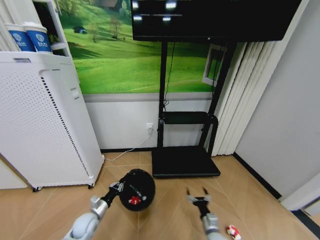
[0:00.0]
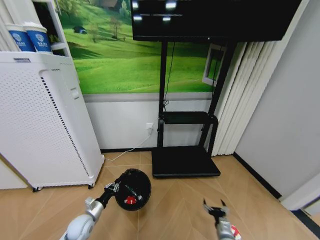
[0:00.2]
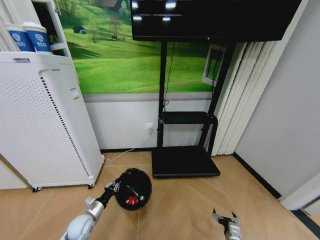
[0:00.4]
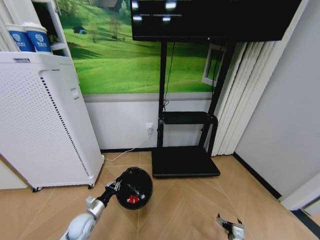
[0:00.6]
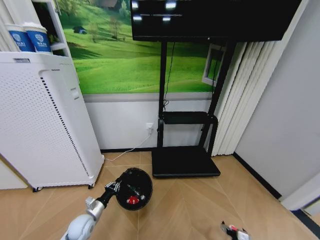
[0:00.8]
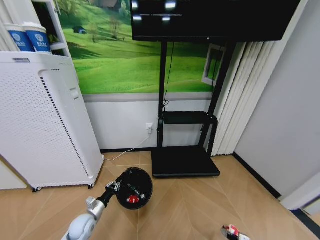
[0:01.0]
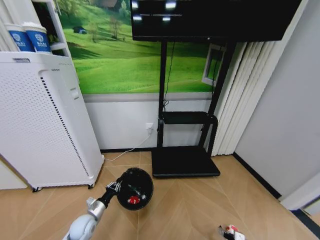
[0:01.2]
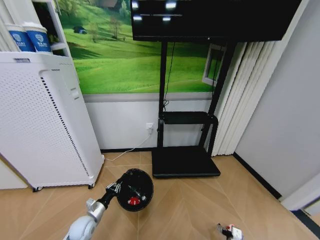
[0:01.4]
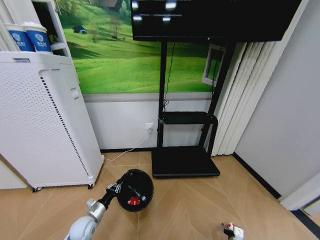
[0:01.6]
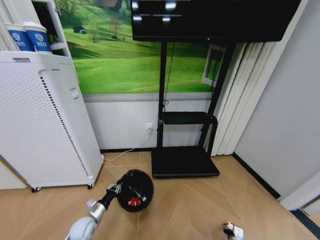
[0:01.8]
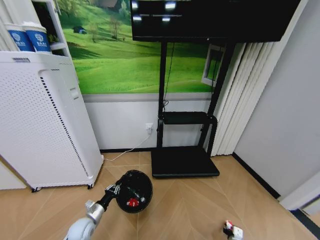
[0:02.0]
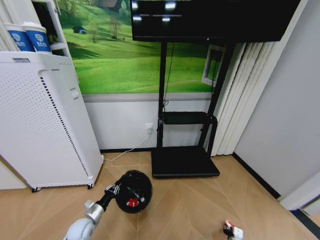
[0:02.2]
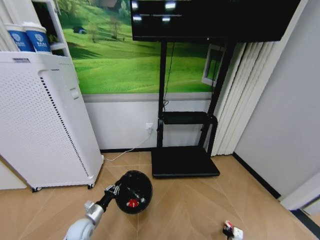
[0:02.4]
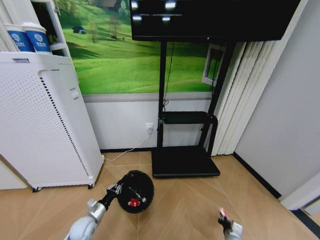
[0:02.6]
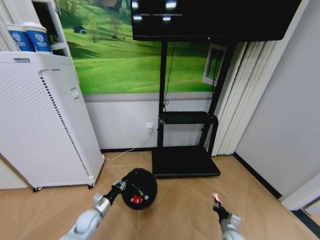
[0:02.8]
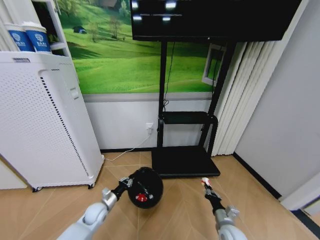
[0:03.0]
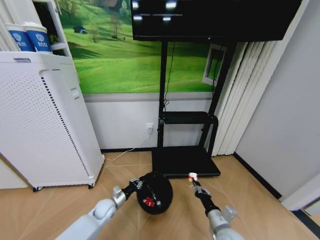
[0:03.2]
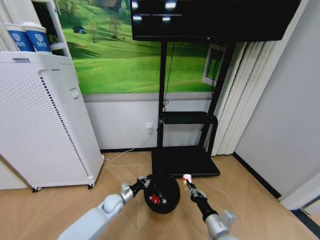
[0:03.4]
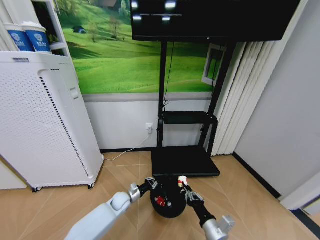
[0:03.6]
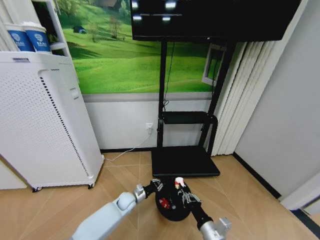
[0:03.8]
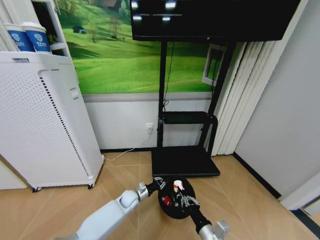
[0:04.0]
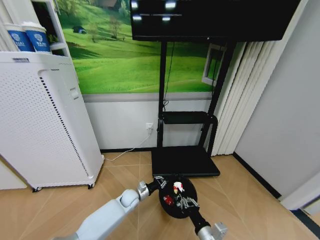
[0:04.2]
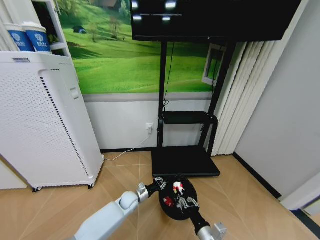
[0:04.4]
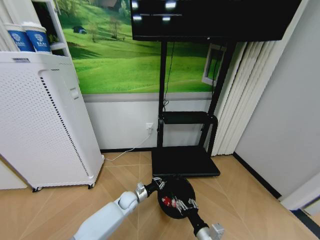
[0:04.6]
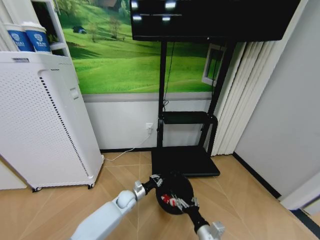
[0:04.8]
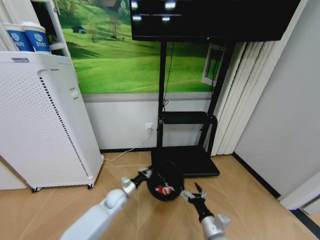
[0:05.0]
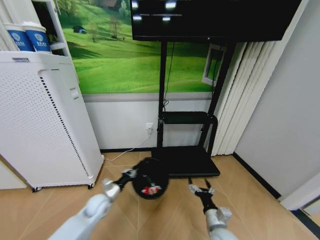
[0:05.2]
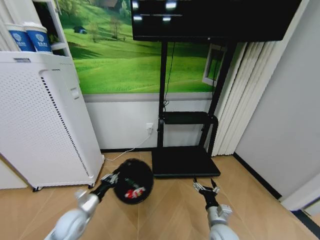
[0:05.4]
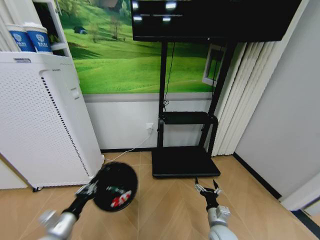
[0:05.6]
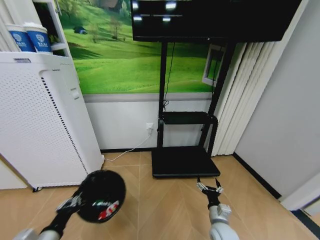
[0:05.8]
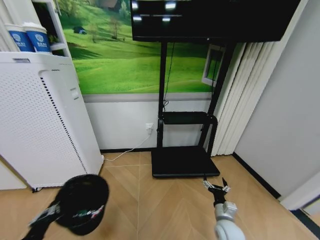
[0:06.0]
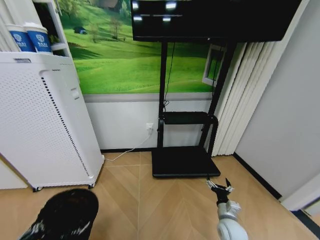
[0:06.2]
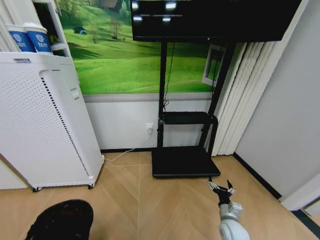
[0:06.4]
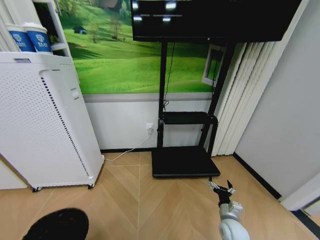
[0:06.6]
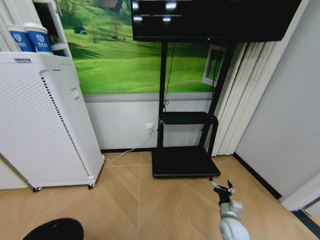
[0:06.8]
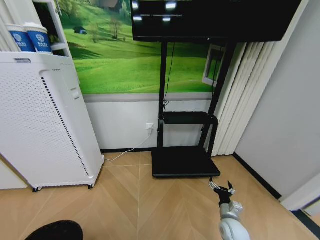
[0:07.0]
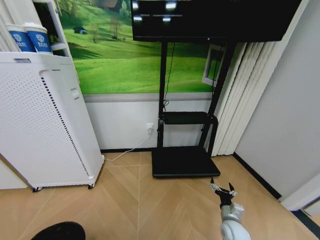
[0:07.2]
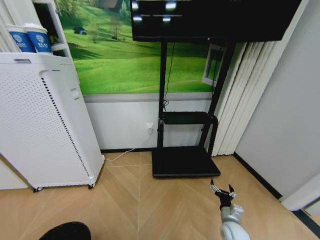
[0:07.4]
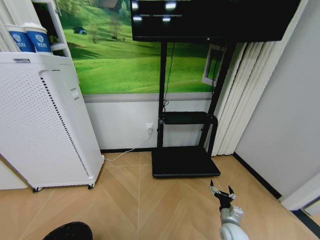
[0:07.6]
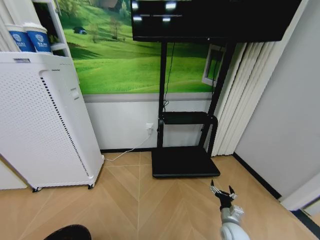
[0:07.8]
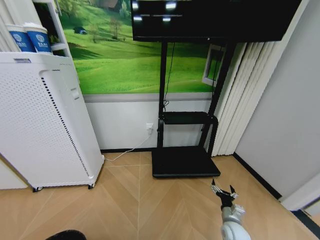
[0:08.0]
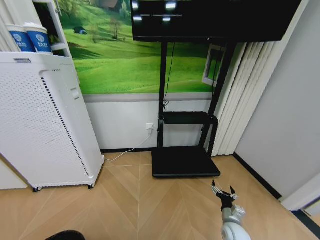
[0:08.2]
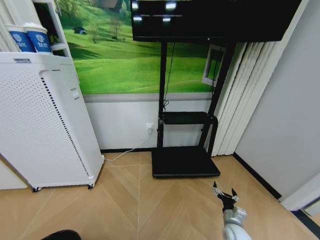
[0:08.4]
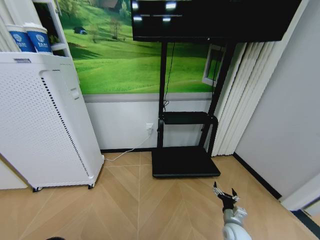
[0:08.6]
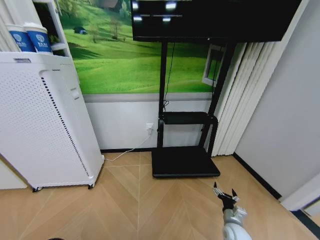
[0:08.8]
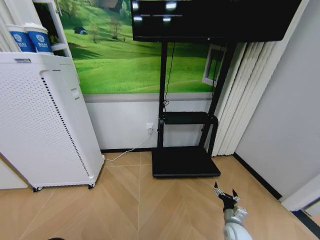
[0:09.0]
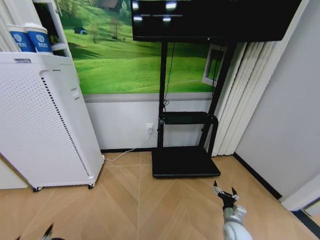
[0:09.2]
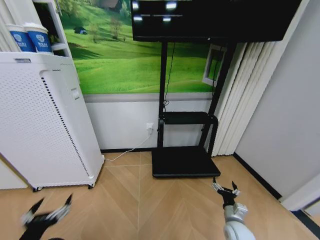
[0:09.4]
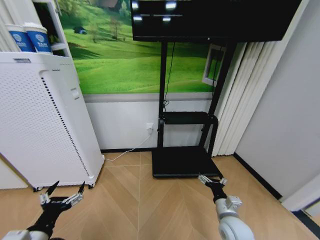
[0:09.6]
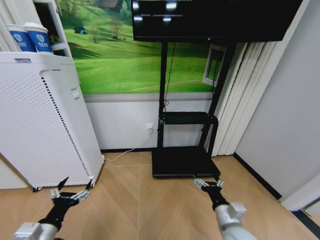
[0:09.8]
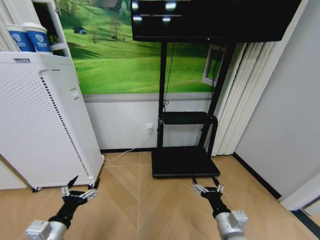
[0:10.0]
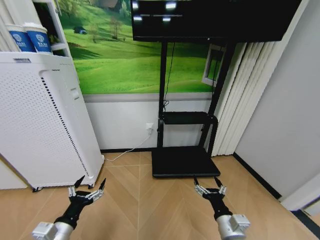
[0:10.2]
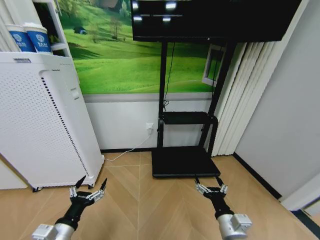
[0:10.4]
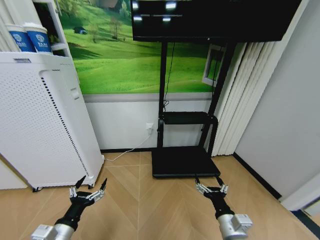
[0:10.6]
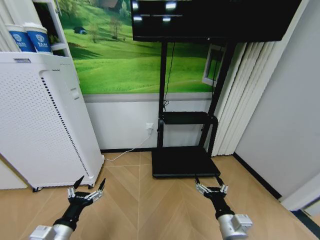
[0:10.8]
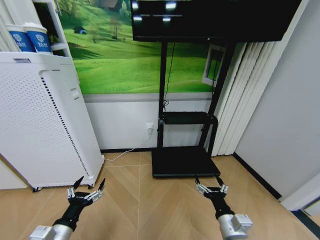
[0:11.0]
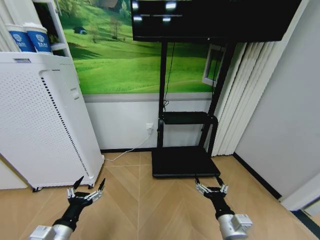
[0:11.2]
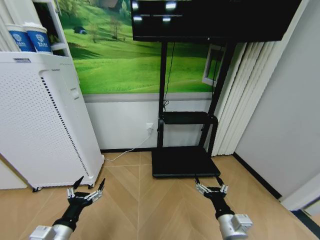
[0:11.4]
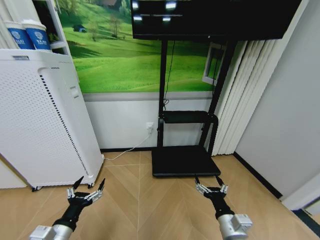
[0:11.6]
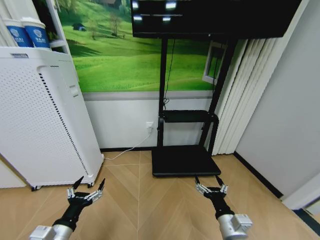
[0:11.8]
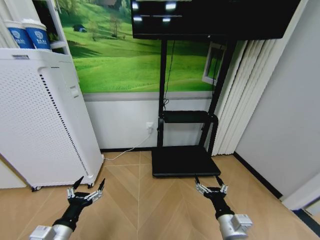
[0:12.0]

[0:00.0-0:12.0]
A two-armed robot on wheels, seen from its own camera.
Task of the whole recording: Pick up the trash bin and place the garbage on the floor into it.
0:00.0 to 0:01.6: The right gripper is displaced to the right and downward by some 20 cm.
0:01.6 to 0:03.0: The right gripper shifts approximately 20 cm upward and to the left, and closes up, while the left gripper goes some 5 cm forward.
0:03.0 to 0:04.4: The left gripper moves to the right, some 15 cm; the right gripper is displaced to the left and backward by approximately 10 cm.
0:04.4 to 0:06.0: The right gripper moves forward and to the right, about 10 cm, and opens. The left gripper moves backward, to the left and upward, roughly 40 cm.
0:06.0 to 0:07.6: The left gripper heads backward and downward, covering about 15 cm; the right gripper goes approximately 5 cm to the right.
0:07.6 to 0:09.0: The left gripper shifts some 10 cm upward, and opens up.
0:09.0 to 0:10.4: The right gripper shifts about 20 cm upward, to the left and backward; the left gripper travels forward and to the right by approximately 15 cm.
0:10.4 to 0:12.0: Both grippers stay about where they are.

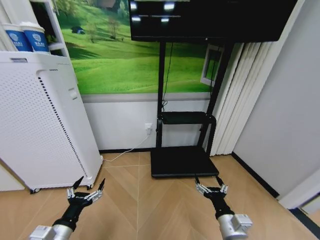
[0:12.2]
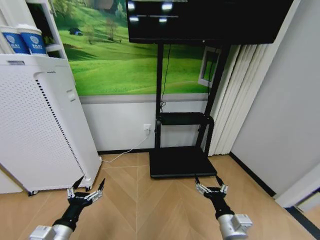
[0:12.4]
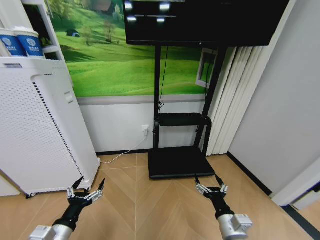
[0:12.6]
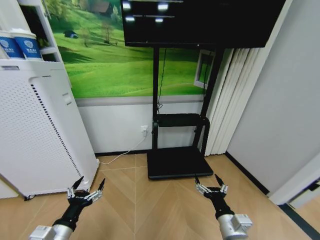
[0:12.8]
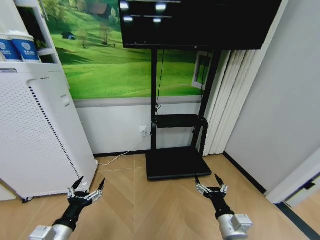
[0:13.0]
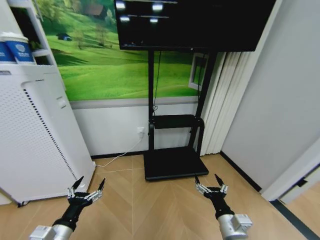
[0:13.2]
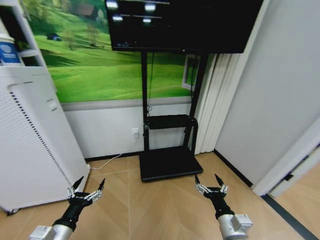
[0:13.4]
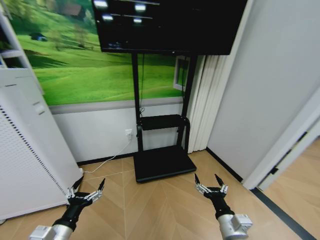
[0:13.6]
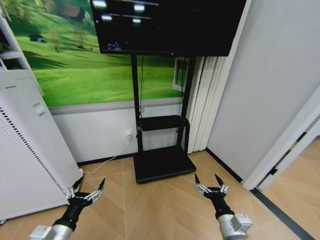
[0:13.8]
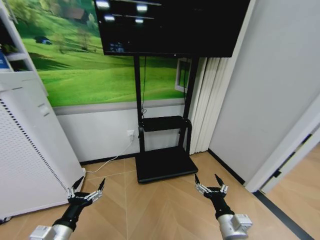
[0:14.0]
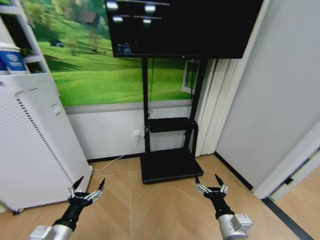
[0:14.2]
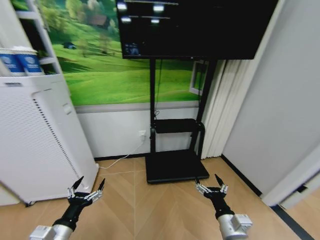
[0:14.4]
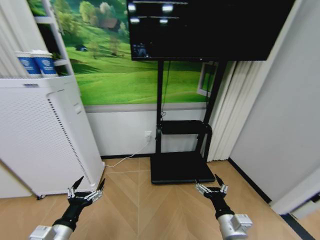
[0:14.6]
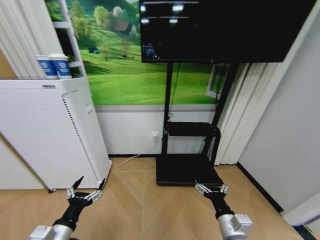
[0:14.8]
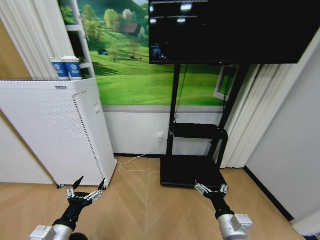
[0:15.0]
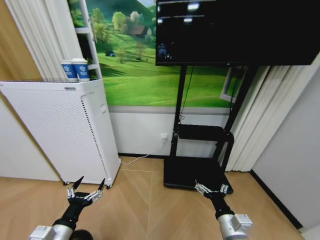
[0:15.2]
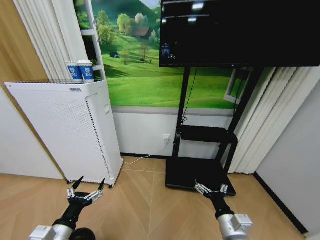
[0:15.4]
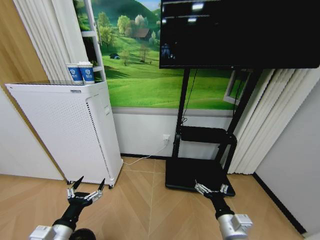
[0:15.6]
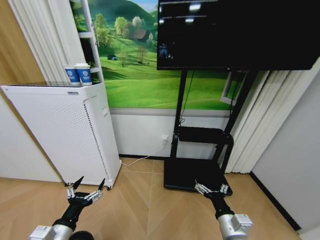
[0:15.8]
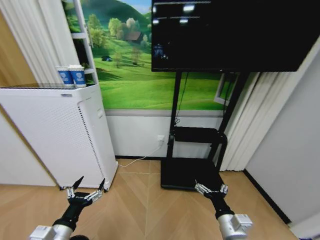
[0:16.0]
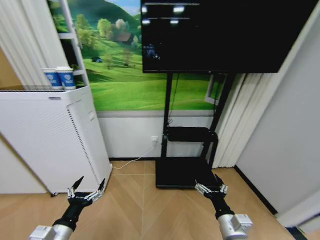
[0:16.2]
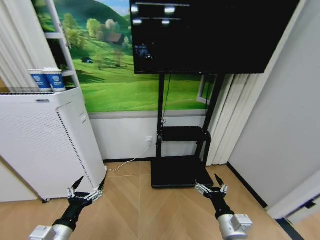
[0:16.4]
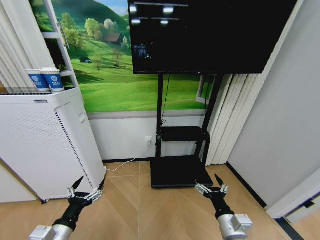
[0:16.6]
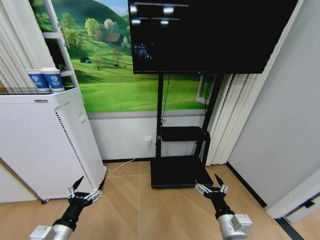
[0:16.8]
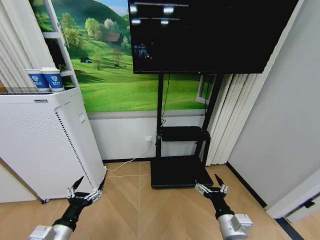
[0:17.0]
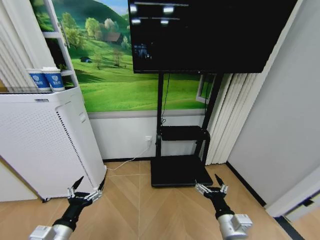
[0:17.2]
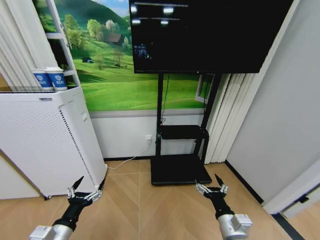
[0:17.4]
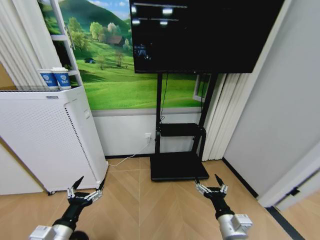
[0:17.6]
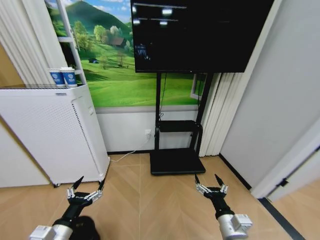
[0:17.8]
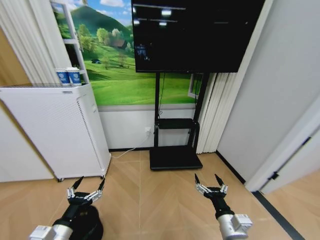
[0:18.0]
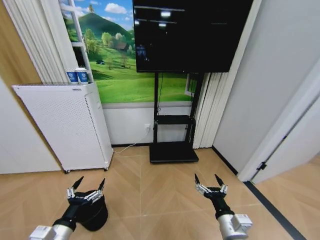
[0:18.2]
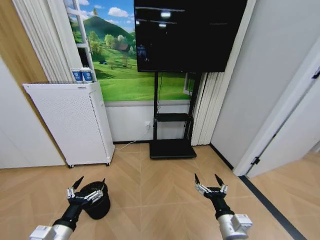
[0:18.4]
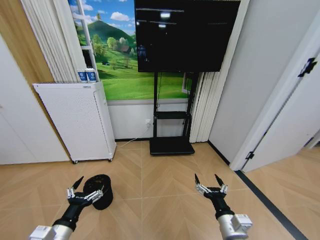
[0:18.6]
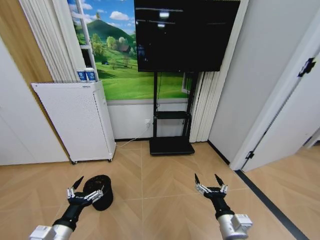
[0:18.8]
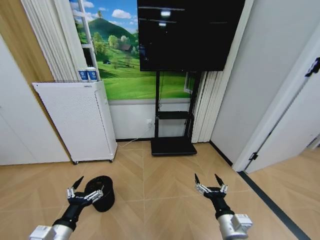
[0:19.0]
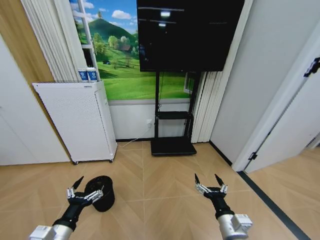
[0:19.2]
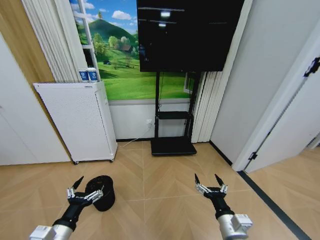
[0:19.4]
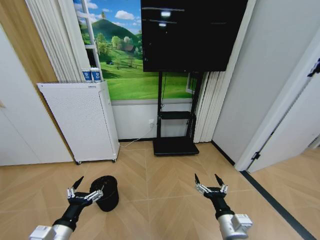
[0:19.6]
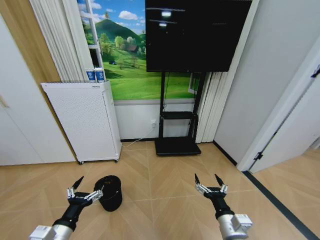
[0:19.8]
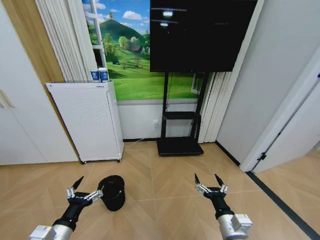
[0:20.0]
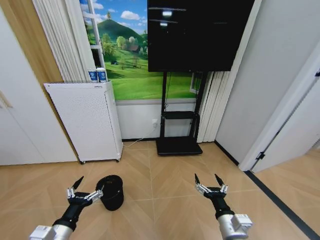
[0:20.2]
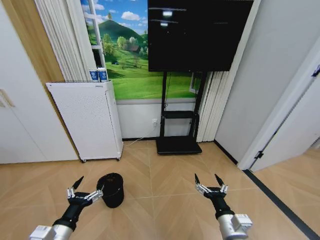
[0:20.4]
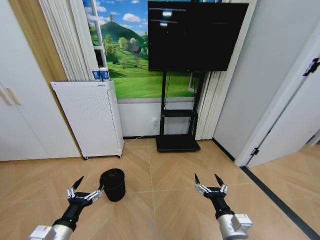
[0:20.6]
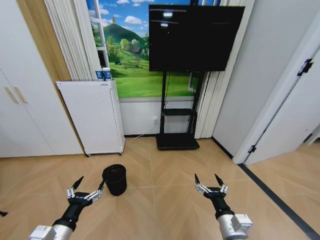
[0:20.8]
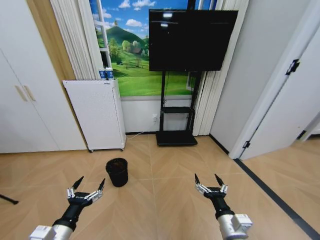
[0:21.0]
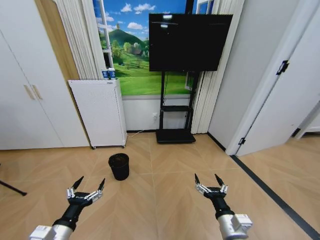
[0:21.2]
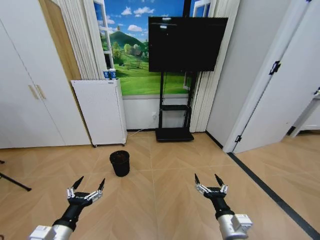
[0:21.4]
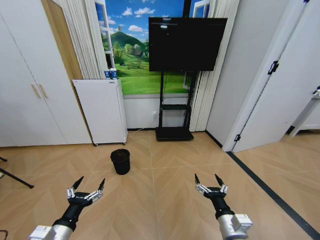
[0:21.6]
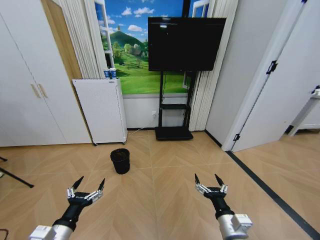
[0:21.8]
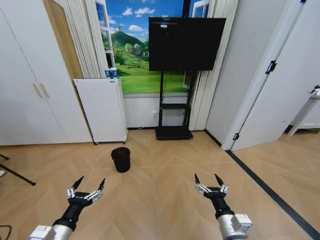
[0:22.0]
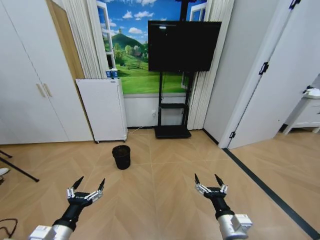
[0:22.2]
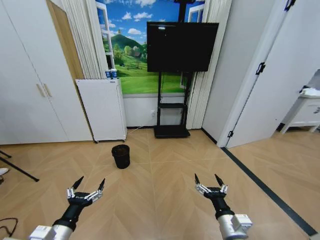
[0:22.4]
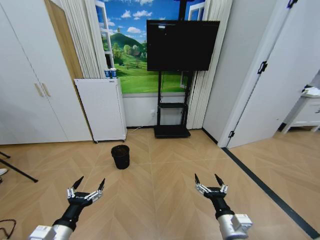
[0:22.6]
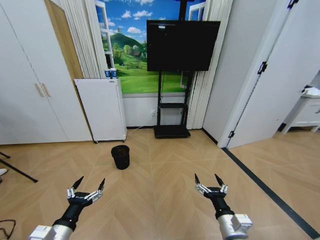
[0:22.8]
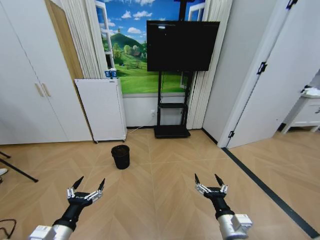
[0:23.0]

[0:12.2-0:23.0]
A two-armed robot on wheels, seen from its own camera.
Task of the whole recording: Pick up the trash bin and place the garbage on the floor into it.
0:21.4 to 0:23.0: Neither gripper changes place.
